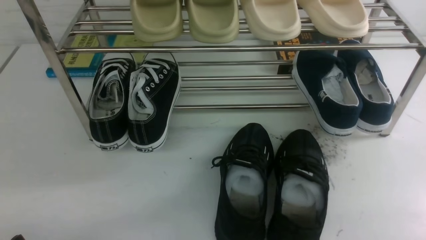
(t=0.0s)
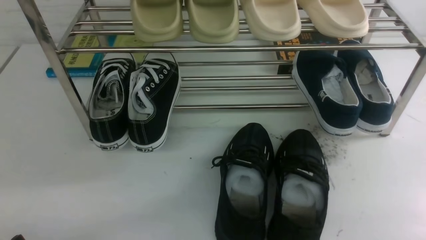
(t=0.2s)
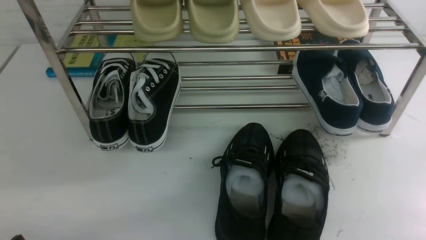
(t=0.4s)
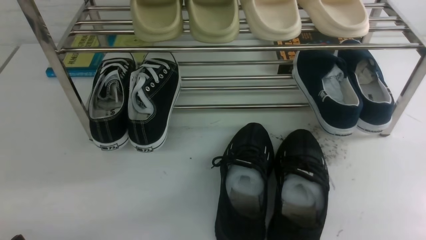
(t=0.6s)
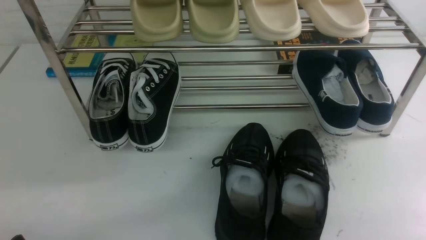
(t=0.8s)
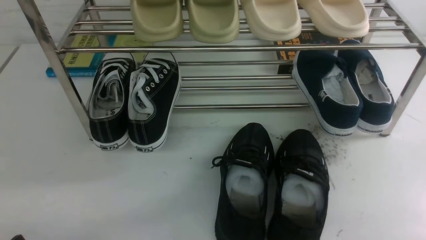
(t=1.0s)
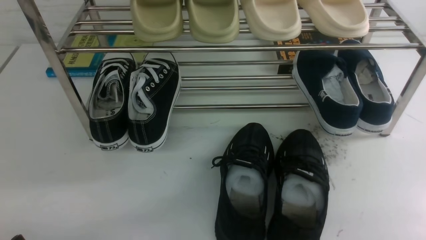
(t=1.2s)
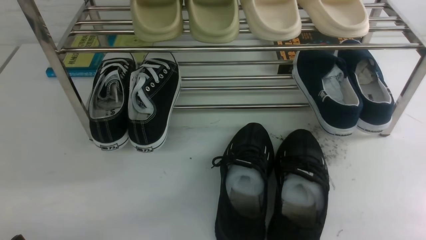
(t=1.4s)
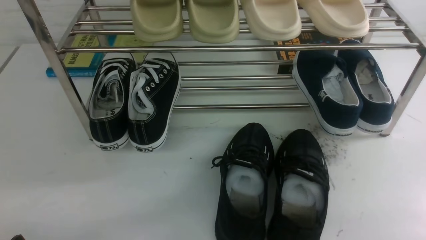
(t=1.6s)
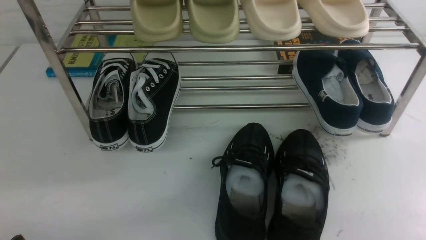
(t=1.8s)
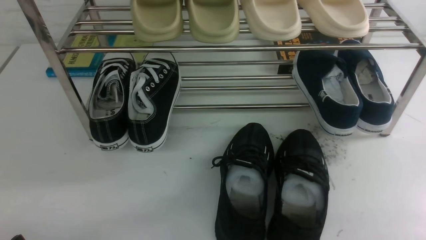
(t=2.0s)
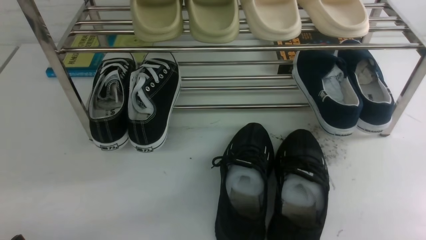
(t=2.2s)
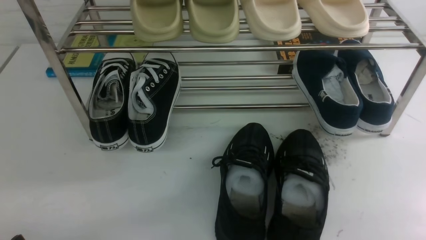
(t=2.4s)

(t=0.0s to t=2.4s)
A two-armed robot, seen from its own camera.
t=0.0s - t=2.4s: Both grippers stay put.
